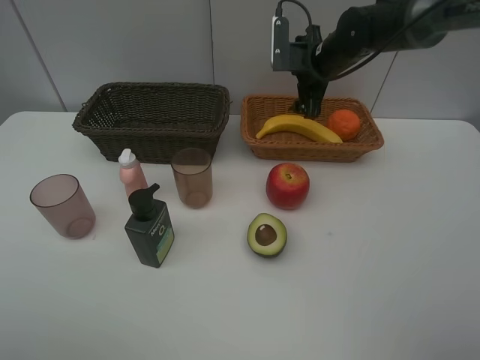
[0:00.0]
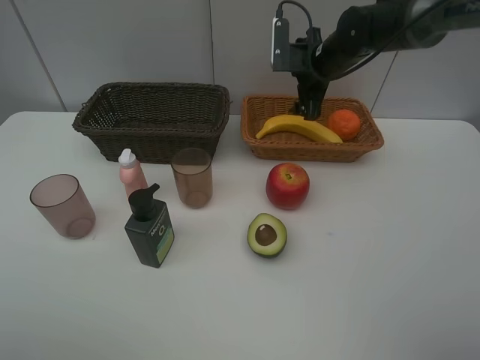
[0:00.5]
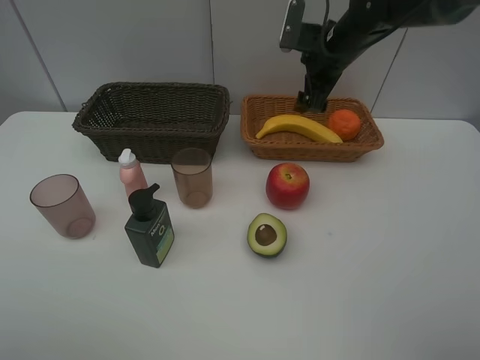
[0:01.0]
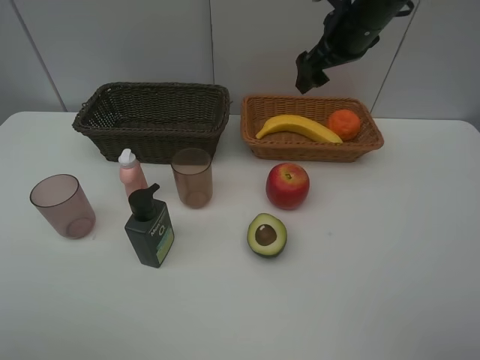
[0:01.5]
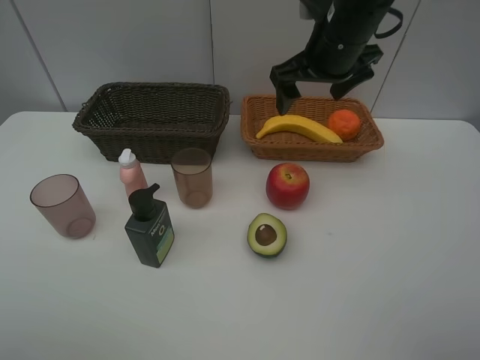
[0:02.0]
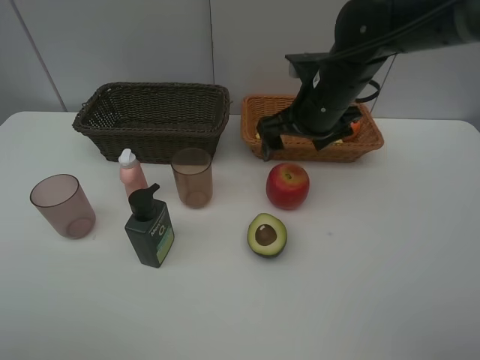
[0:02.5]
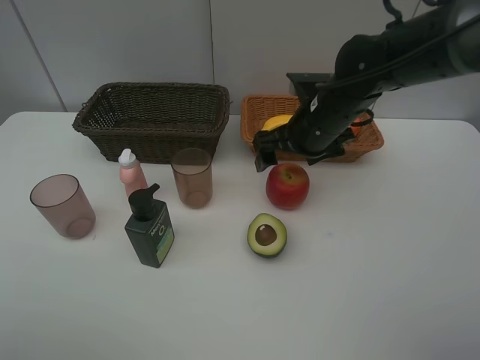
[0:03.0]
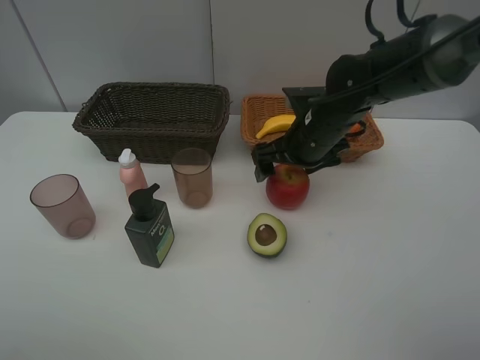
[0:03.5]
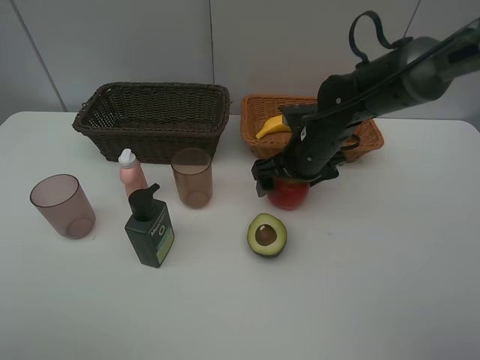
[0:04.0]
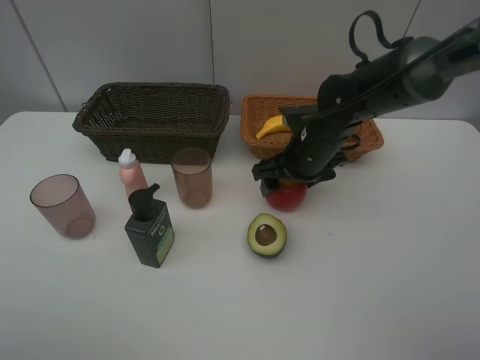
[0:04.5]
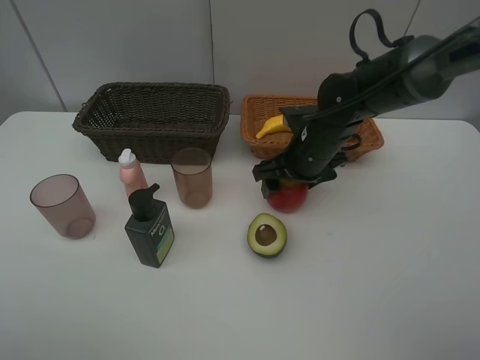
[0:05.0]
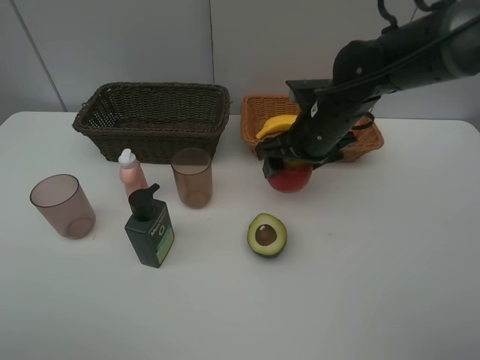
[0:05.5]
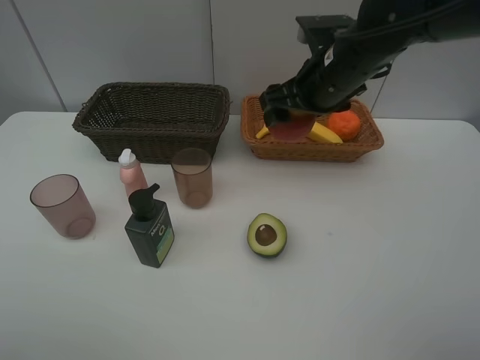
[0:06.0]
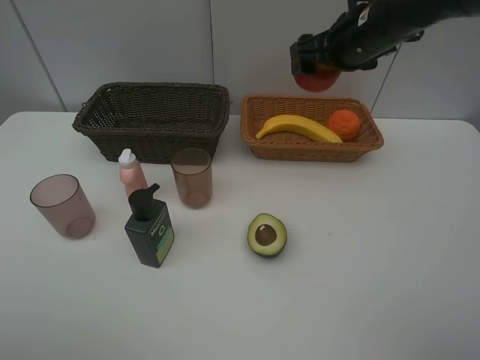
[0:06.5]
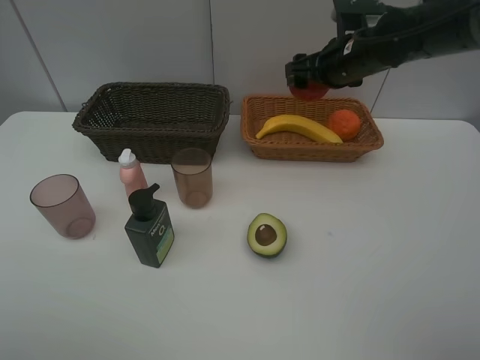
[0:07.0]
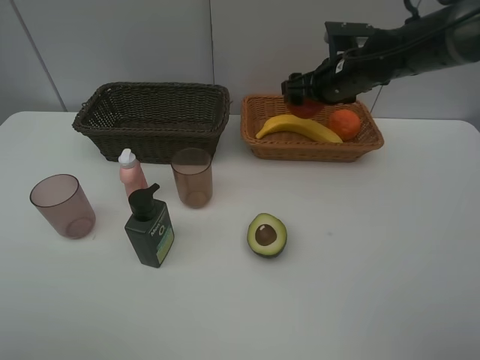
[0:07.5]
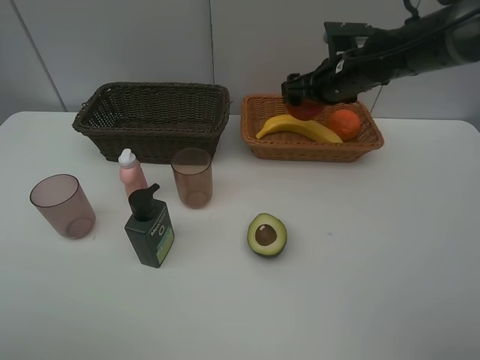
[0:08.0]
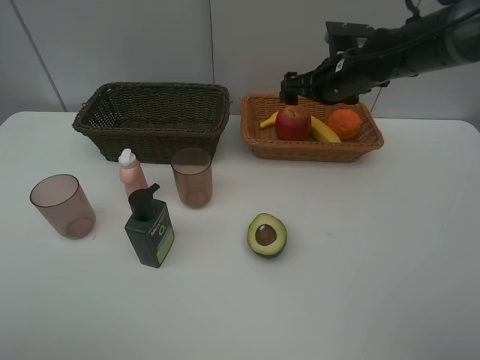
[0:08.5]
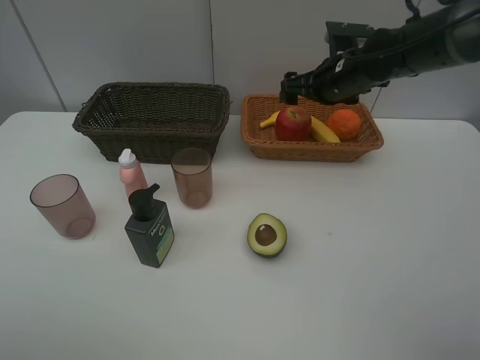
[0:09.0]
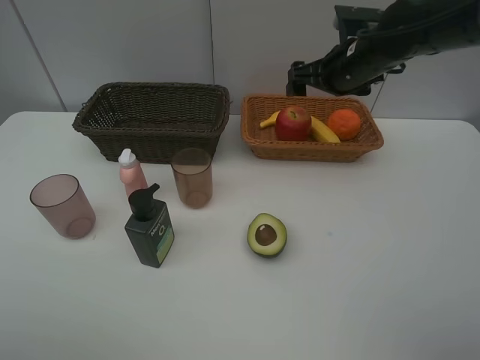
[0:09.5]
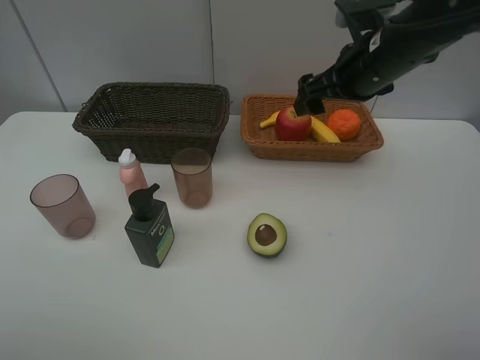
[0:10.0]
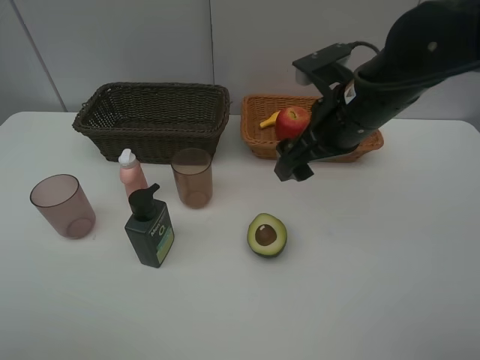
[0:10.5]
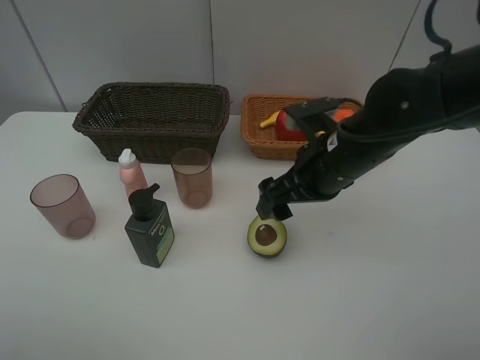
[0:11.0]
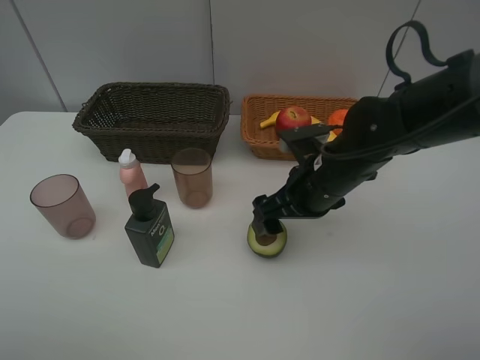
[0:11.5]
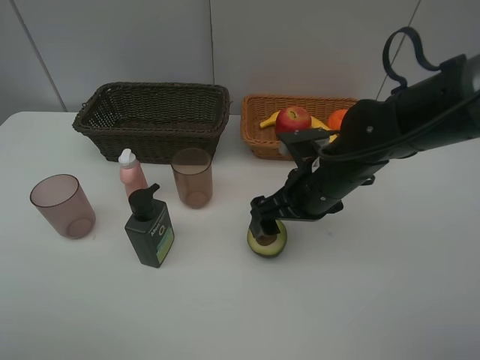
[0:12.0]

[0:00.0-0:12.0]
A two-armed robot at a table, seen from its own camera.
Task of the whole recording: Place multiple objects separately in different baskets.
Step, 0:00.0 to 0:05.0: Pick up the apple with right gripper.
Step, 0:05.5 to 0:08.0: Place the apple in the light basket with right gripper.
0:00.0 to 0:02.0: The right gripper shifts roughly 15 cm backward and upward.
0:02.0 to 0:04.0: The right gripper travels downward by roughly 15 cm.
0:04.0 to 0:06.0: The right gripper goes some 10 cm upward.
0:06.0 to 0:08.0: The right gripper is displaced forward and downward by some 10 cm.
0:08.0 to 0:10.0: The right gripper heads backward and upward, covering some 10 cm.
0:10.0 to 0:12.0: The right gripper goes about 15 cm downward, backward and to the left.

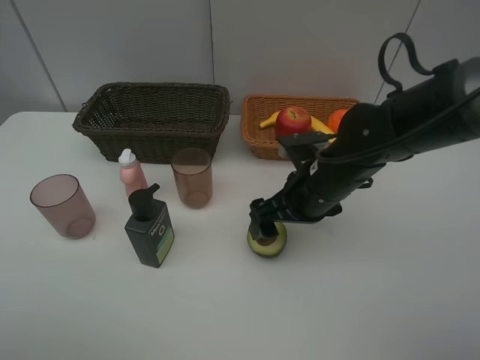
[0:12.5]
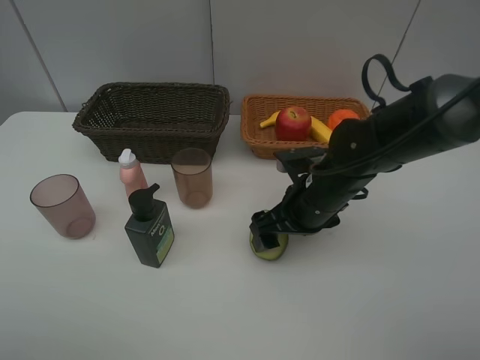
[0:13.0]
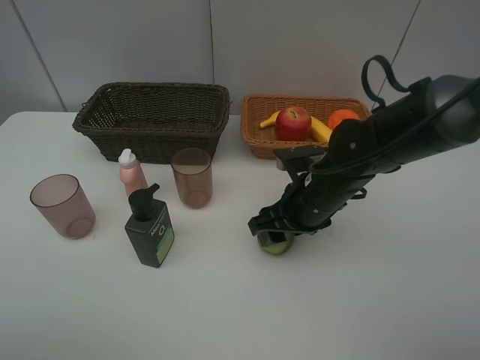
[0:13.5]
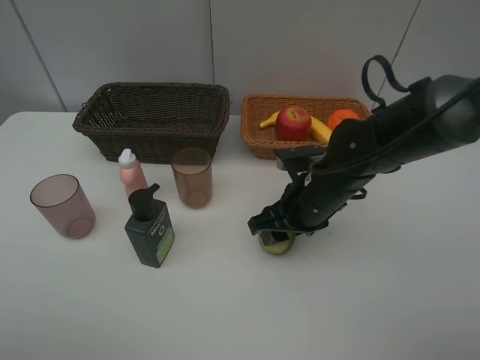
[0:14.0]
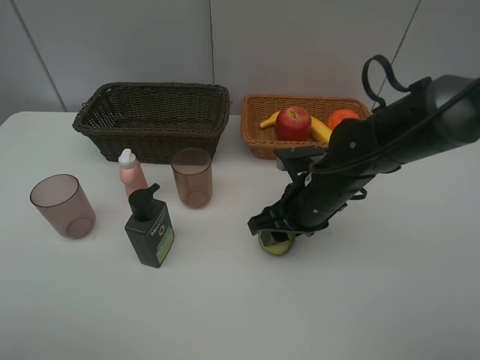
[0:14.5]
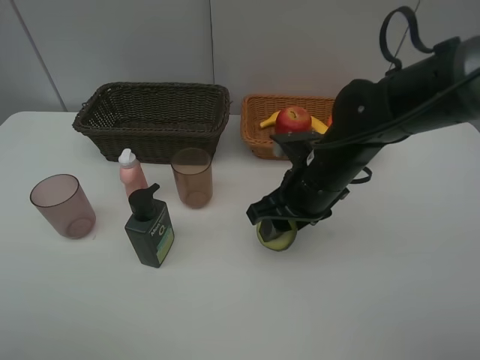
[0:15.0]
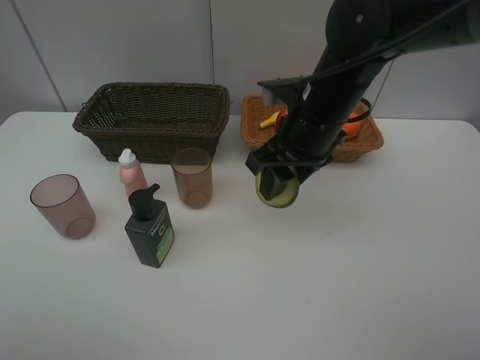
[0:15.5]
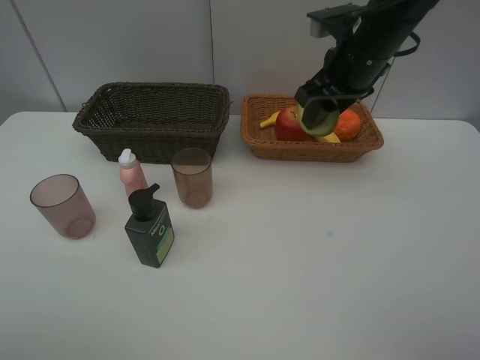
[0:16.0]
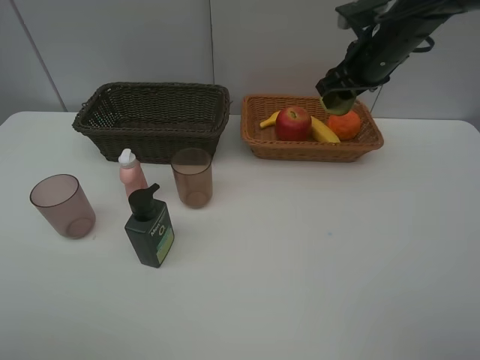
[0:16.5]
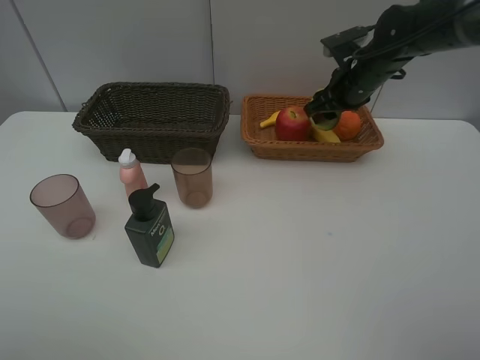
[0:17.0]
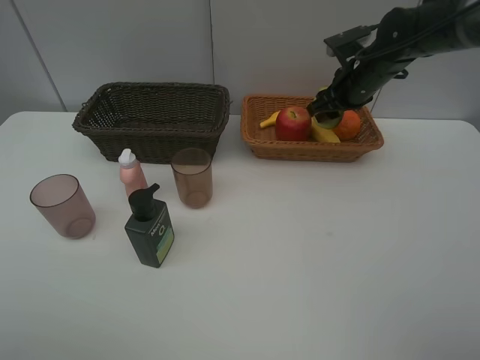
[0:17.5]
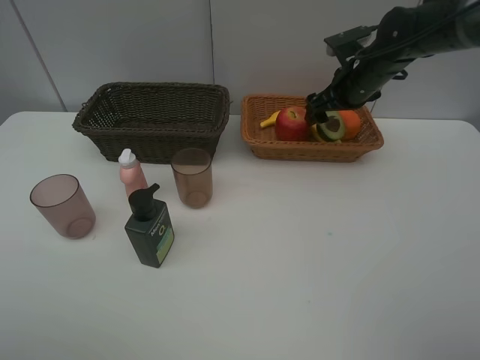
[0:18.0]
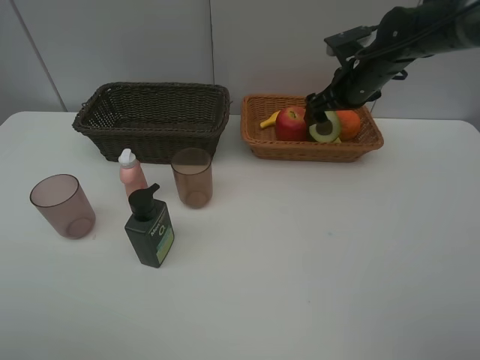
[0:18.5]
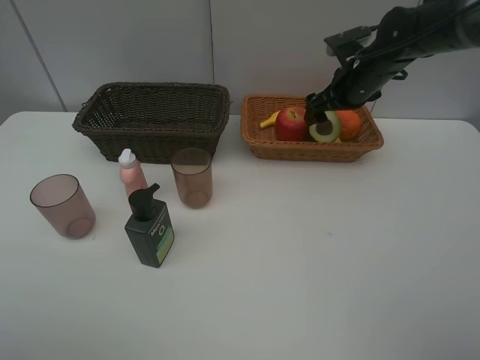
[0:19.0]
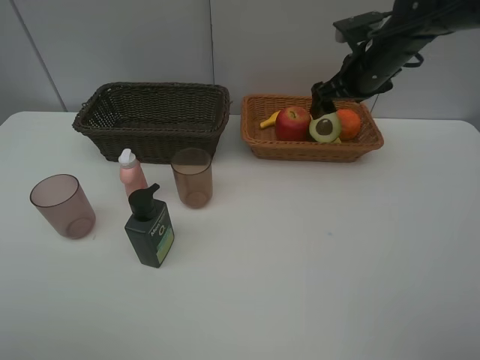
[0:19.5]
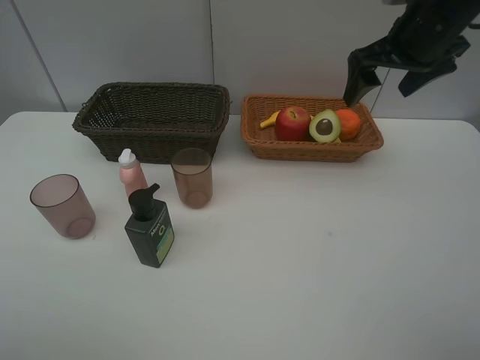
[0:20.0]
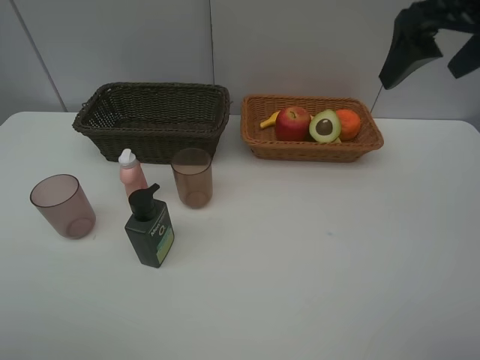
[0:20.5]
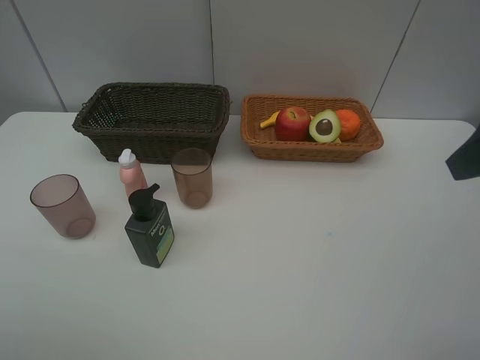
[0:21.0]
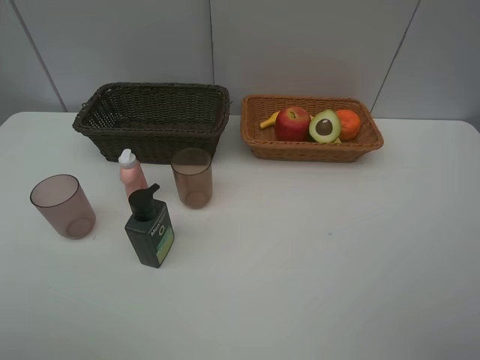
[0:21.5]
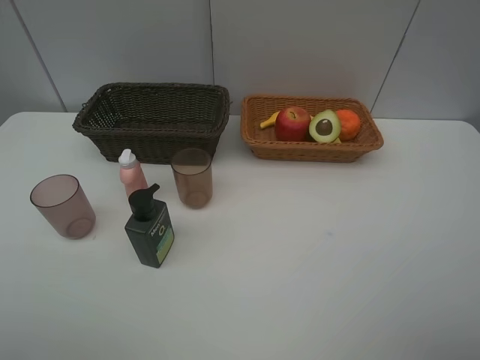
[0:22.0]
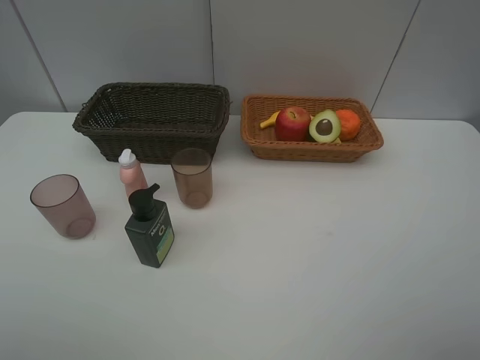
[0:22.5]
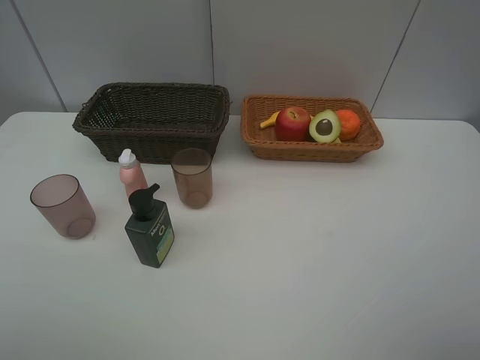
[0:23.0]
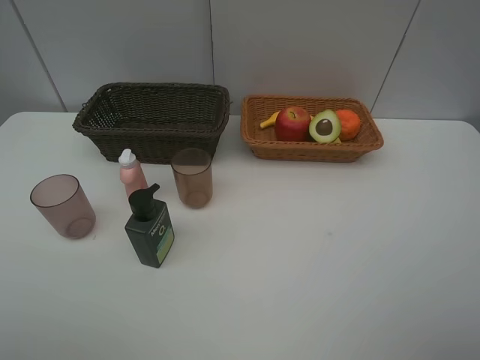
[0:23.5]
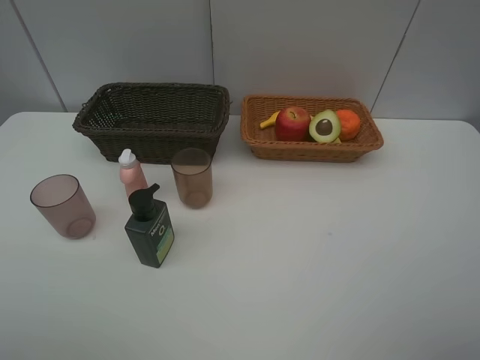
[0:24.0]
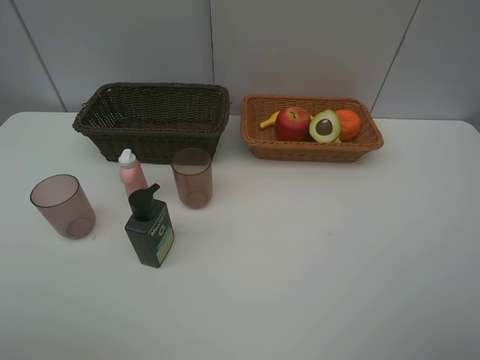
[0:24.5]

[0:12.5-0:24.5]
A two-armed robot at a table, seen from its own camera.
Task of the whole recording: Place multiple objects separately in different baskets.
Step, 0:12.5 to 0:14.5: Pick up the avocado with right gripper.
Step, 0:15.0 to 0:18.5: Place the avocado in the light basket with right gripper.
0:12.5 to 0:14.5: The right gripper closes its fingers.
0:14.5 to 0:16.5: The right gripper is displaced forward, upward and to the right by some 20 cm.
0:16.5 to 0:18.5: The right gripper shifts by some 5 cm, and opens.
0:18.5 to 0:20.5: The right gripper is displaced backward and upward by roughly 25 cm.
0:20.5 to 0:22.5: The right gripper goes about 25 cm backward.
0:22.5 to 0:24.5: Neither gripper changes place.

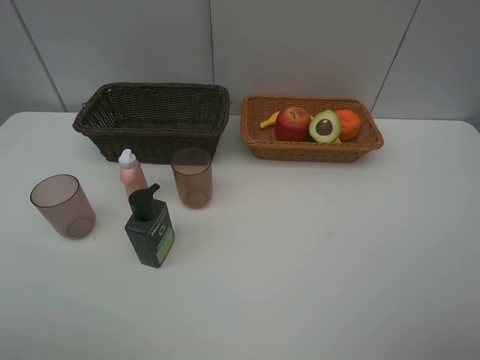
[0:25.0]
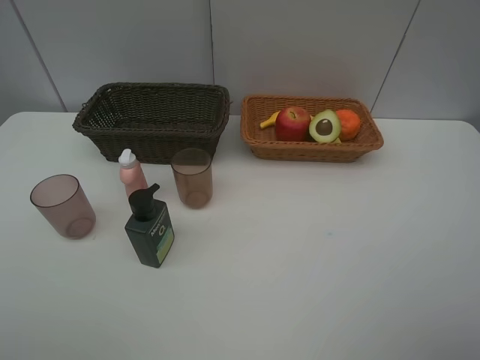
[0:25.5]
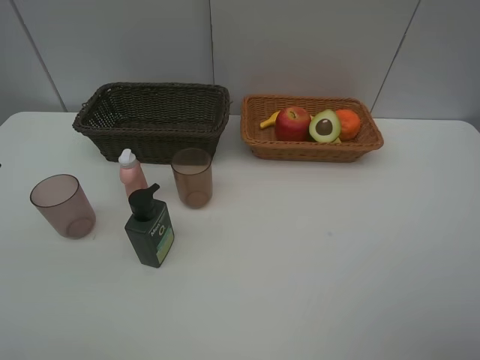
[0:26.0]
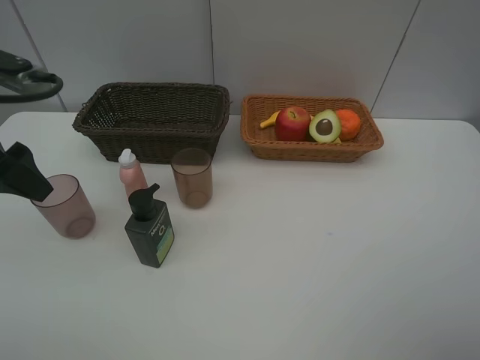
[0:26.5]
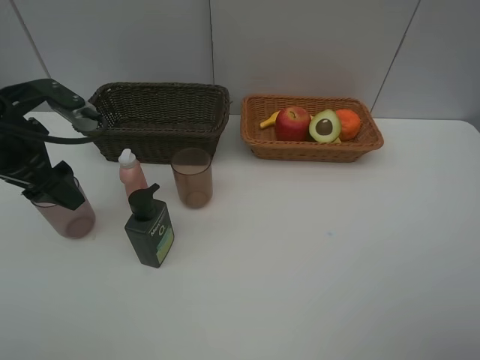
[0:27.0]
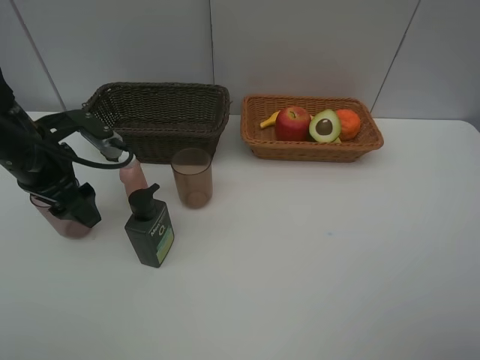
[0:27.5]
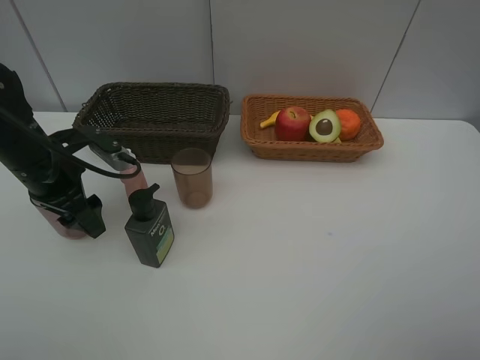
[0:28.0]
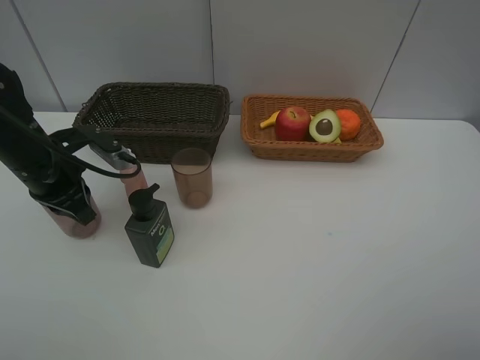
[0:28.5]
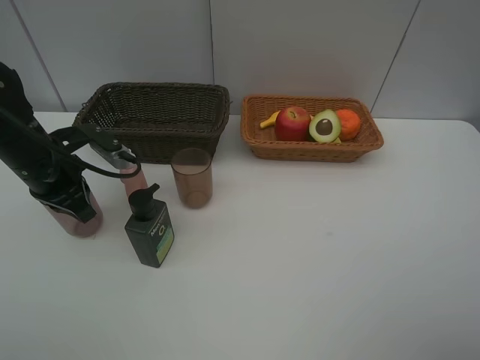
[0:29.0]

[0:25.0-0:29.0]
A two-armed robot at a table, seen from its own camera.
Task of the whole recording: Place multiple objects separately in different baskets.
0:25.0 to 0:27.0: The left gripper is displaced forward by about 25 cm.
0:27.0 to 0:29.0: The left gripper travels downward by roughly 5 cm, and closes up.
